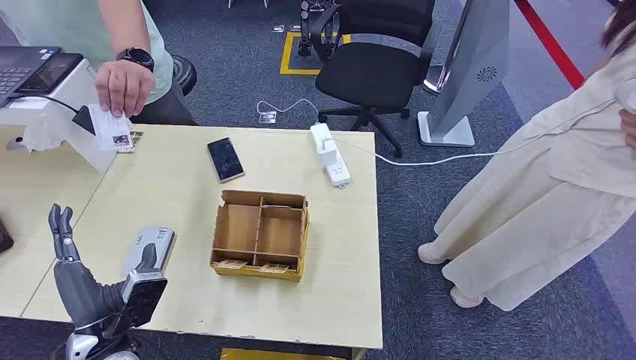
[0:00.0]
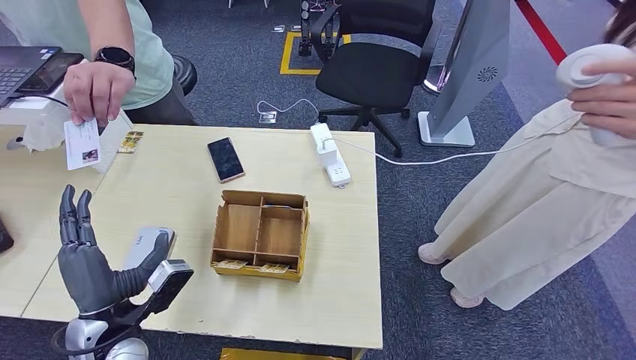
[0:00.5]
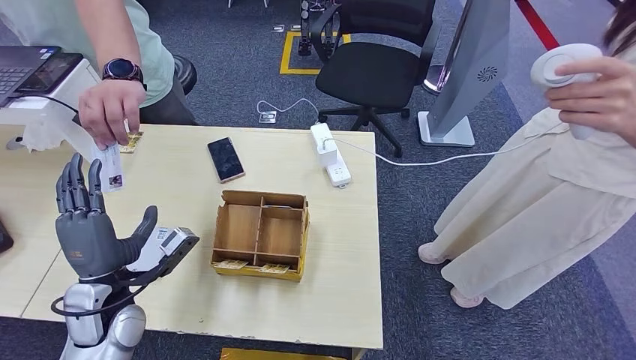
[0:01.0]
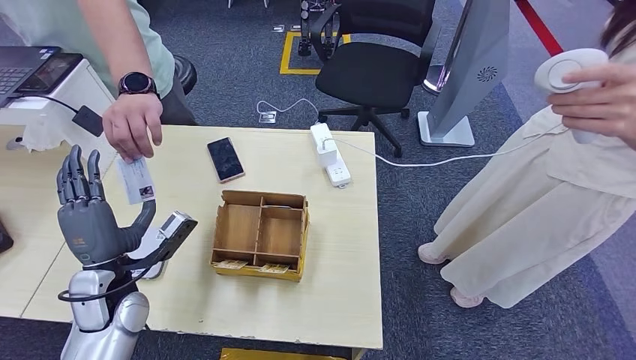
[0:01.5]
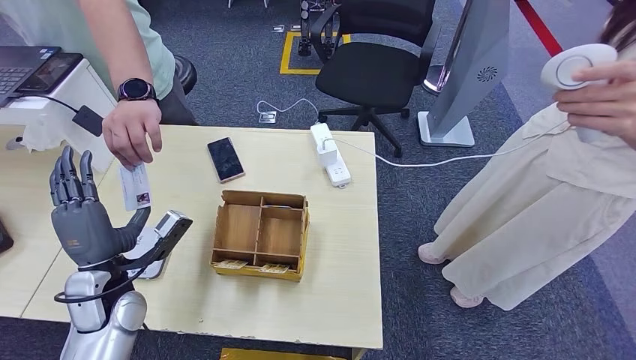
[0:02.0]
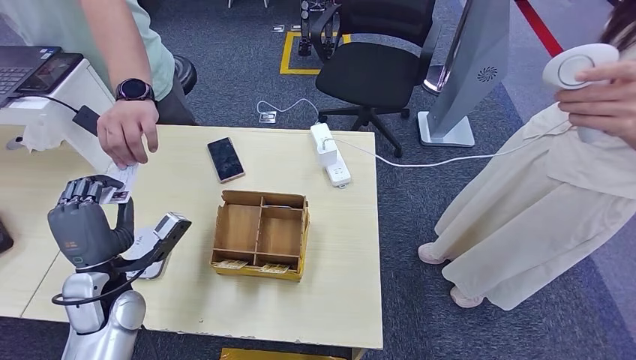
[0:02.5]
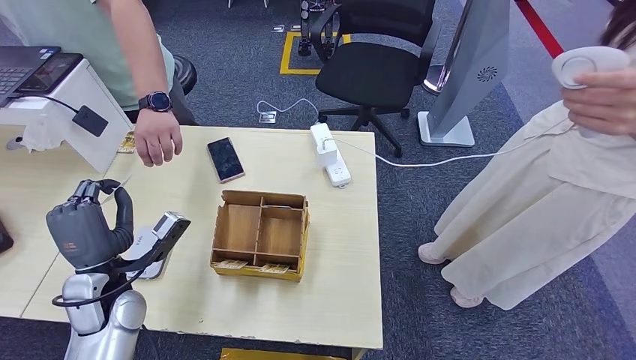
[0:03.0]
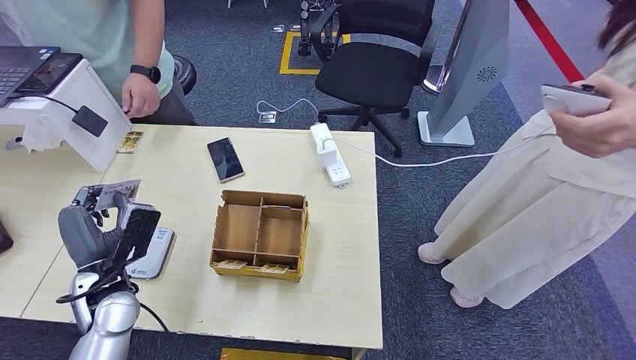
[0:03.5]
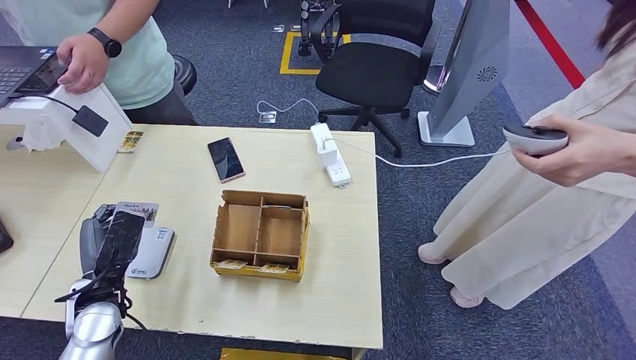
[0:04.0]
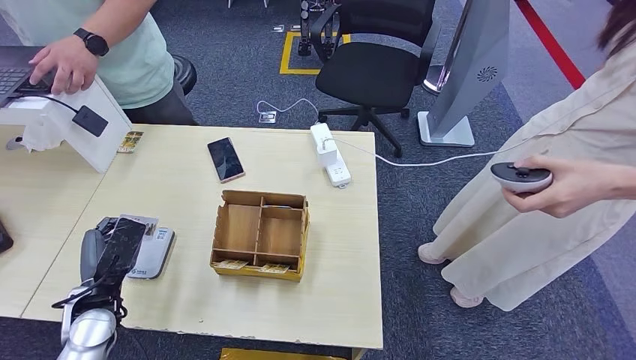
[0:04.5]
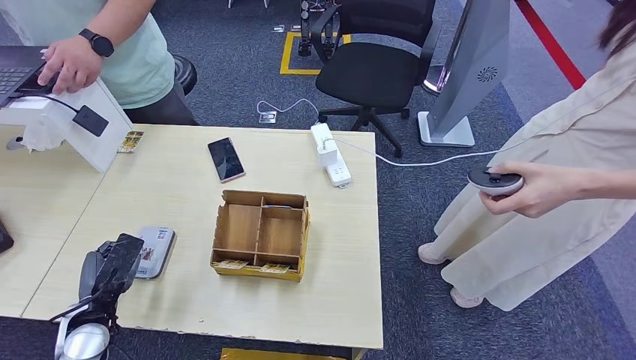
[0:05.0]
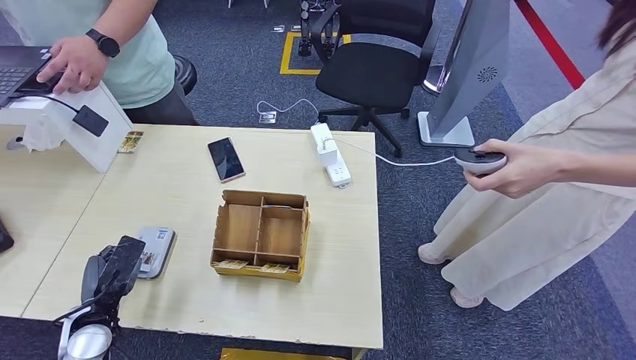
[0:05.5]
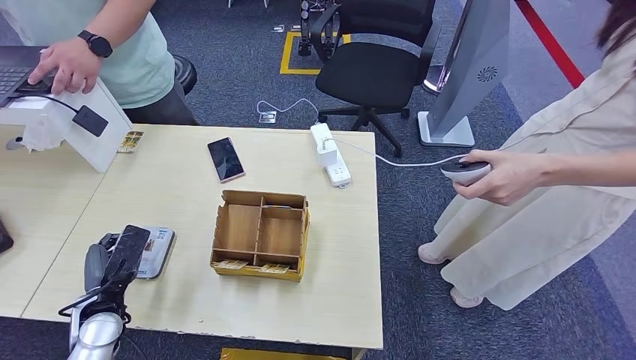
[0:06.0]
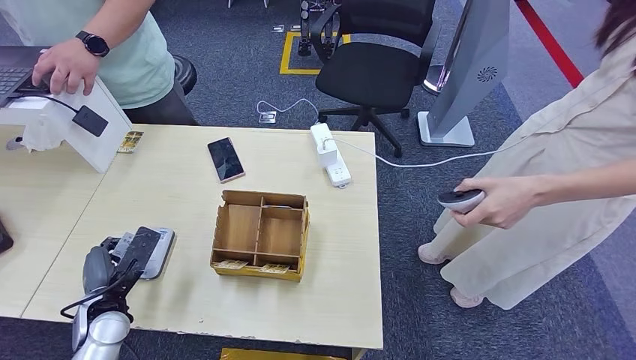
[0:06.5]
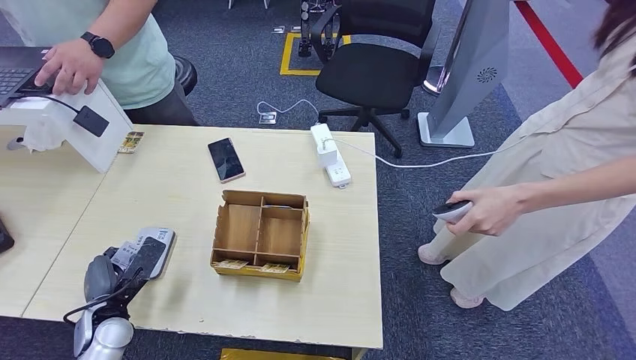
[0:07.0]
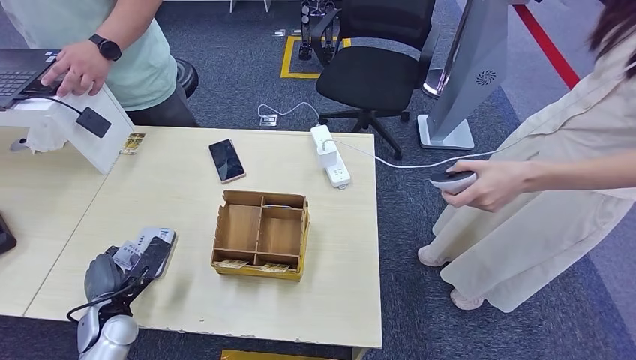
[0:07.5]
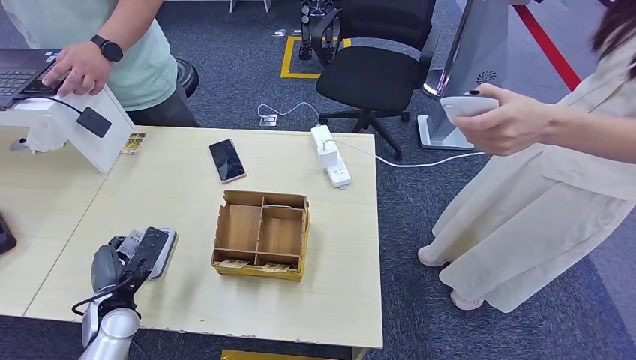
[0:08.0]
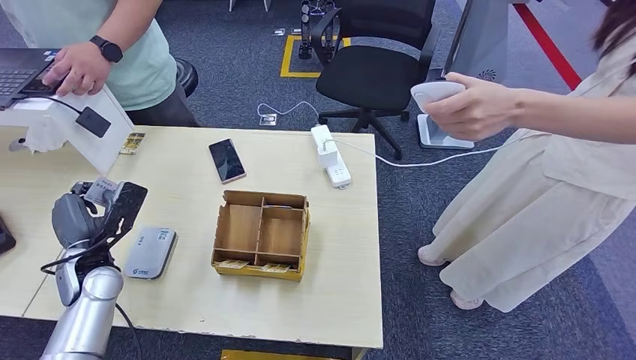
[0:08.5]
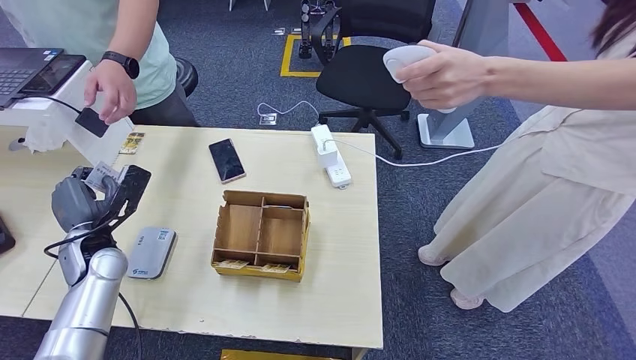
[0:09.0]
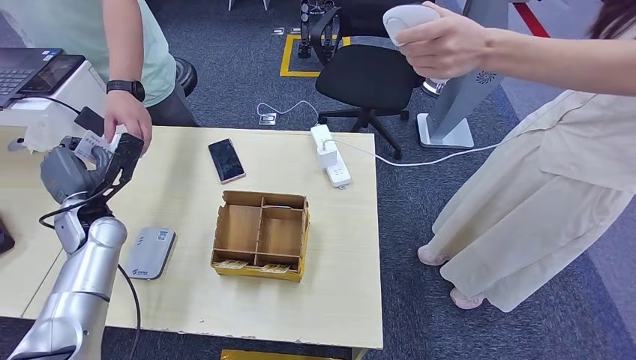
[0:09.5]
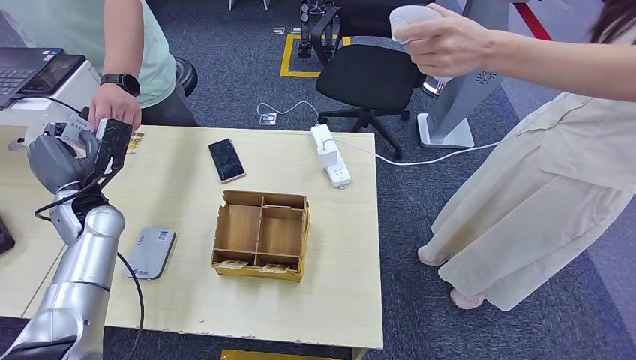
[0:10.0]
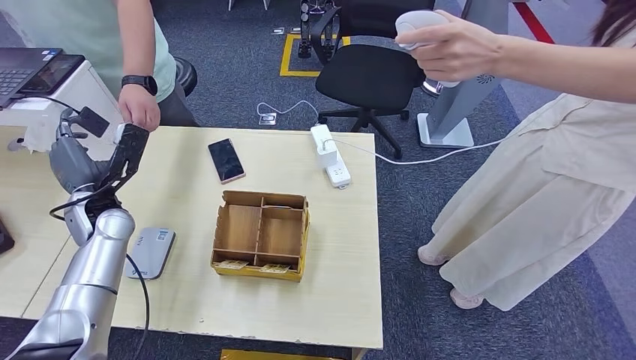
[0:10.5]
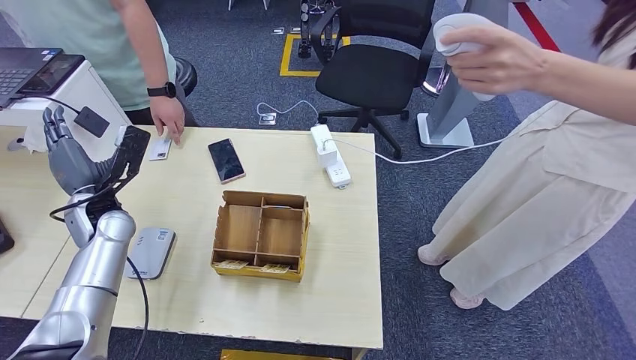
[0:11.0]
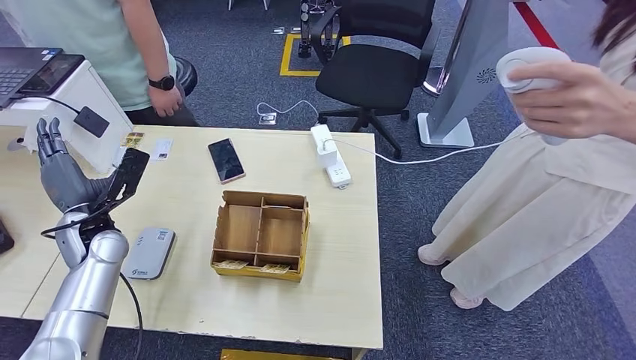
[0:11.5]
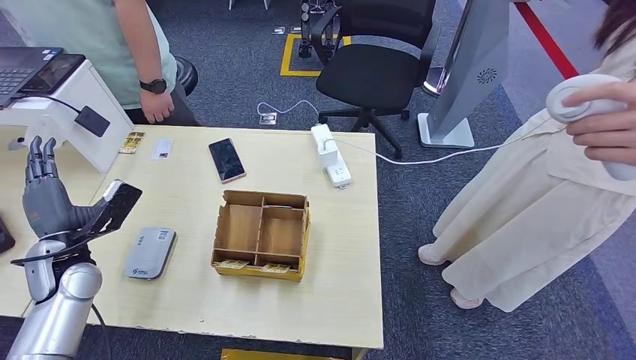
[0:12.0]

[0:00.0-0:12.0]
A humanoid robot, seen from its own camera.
Step, 0:00.0 to 0:02.5: Take the ID card from the person's hand.
Step, 0:03.5 to 0:07.0: Place the ID card on the card reader.
Step, 0:08.0 to 0:10.0: Hand the ID card to the person.
0:04.0 to 0:06.0: The left hand travels downward by some 5 cm.

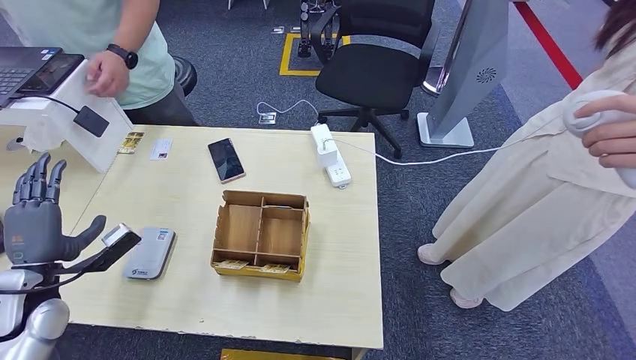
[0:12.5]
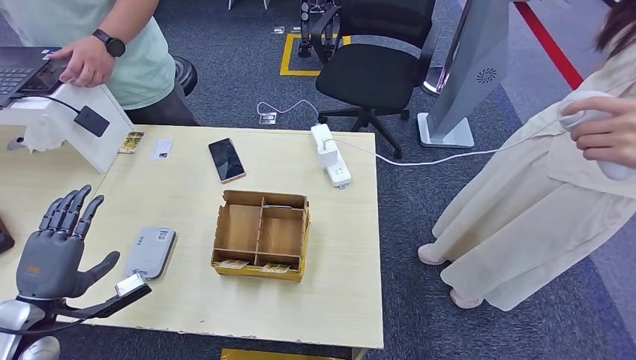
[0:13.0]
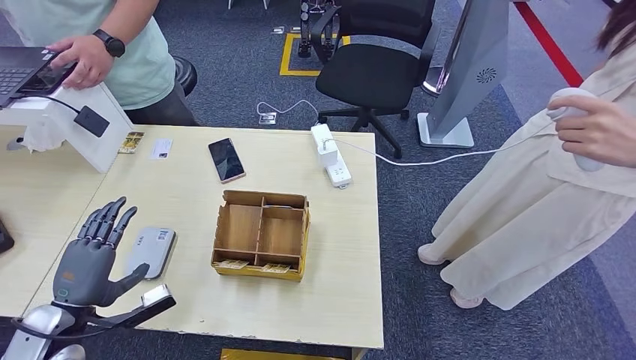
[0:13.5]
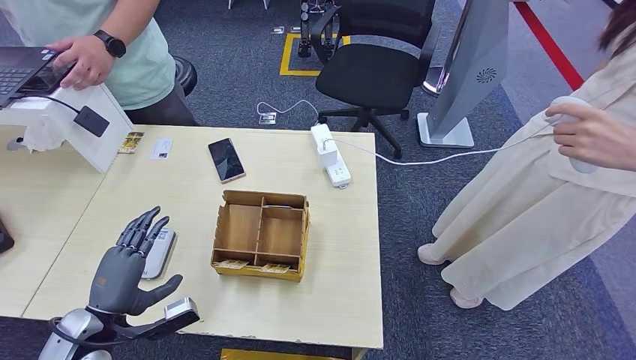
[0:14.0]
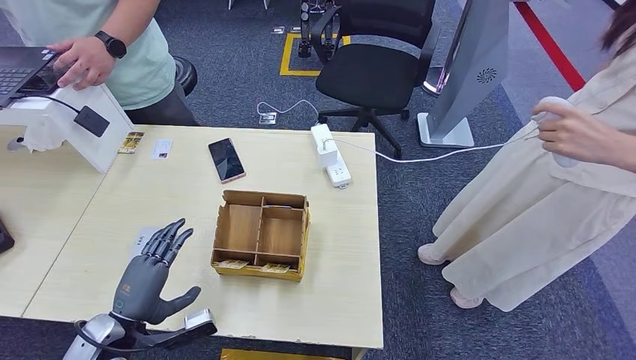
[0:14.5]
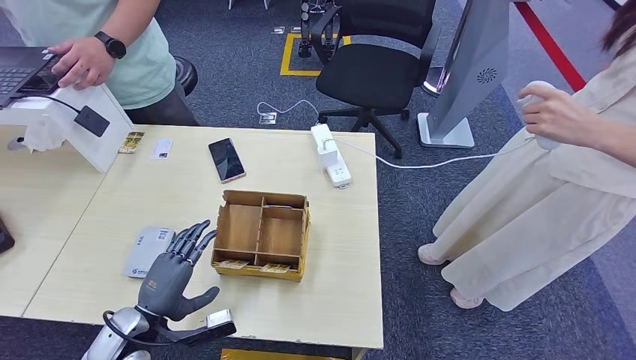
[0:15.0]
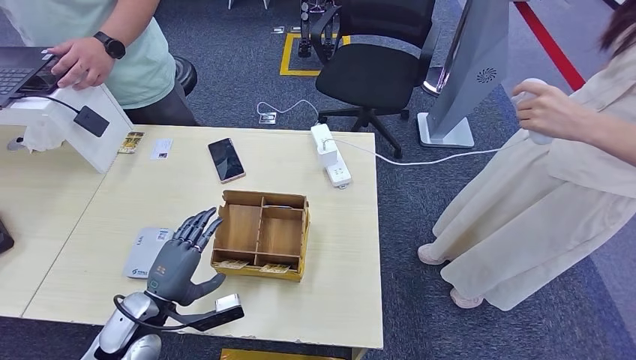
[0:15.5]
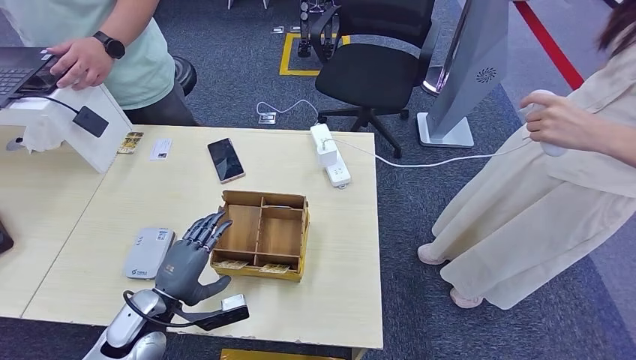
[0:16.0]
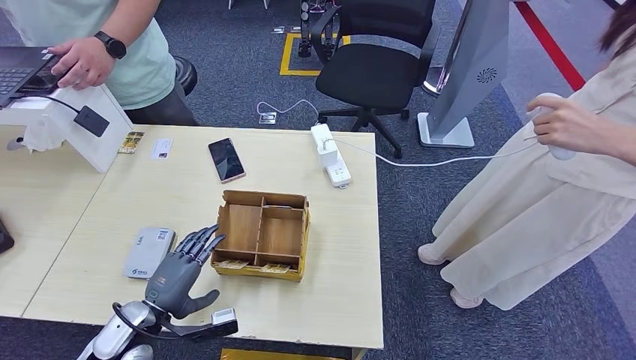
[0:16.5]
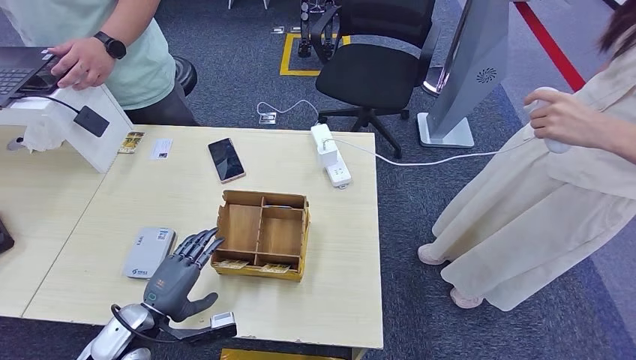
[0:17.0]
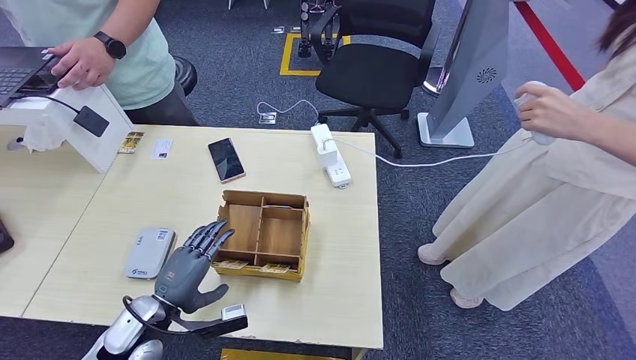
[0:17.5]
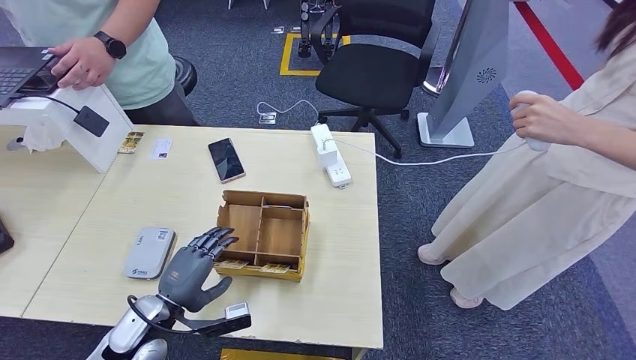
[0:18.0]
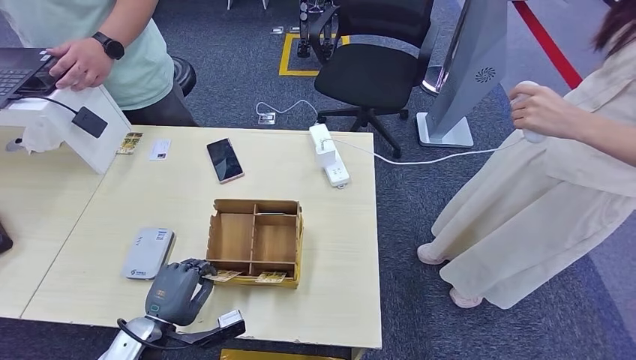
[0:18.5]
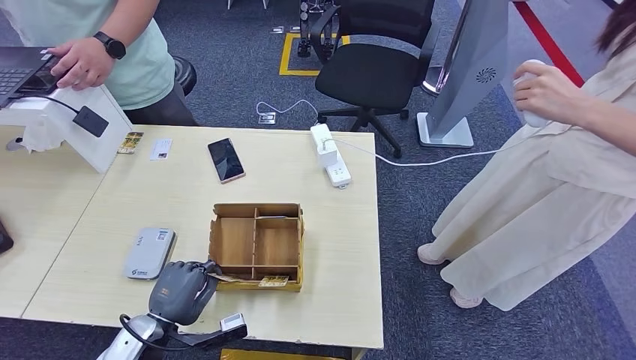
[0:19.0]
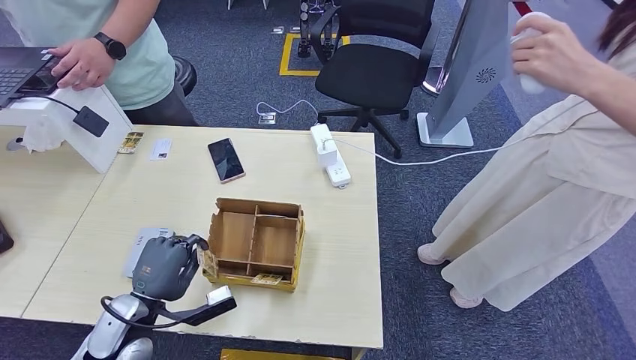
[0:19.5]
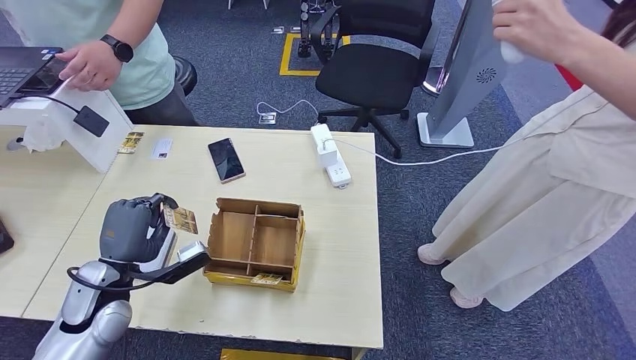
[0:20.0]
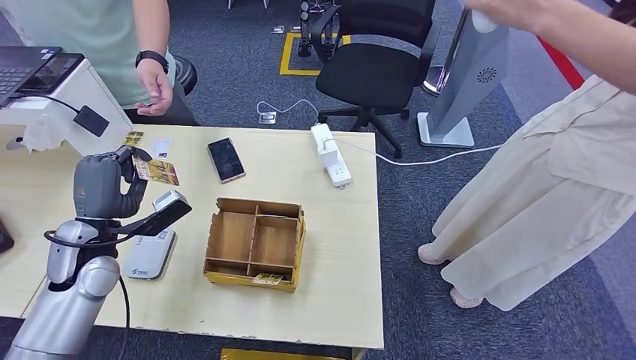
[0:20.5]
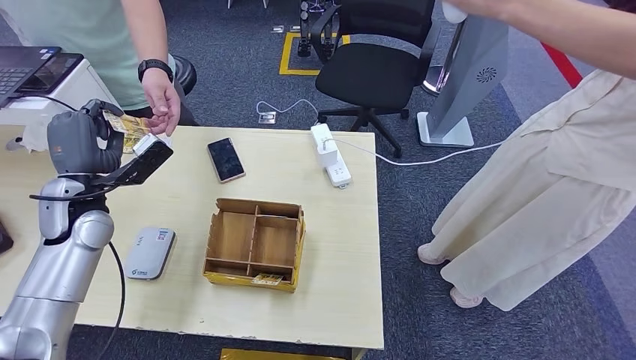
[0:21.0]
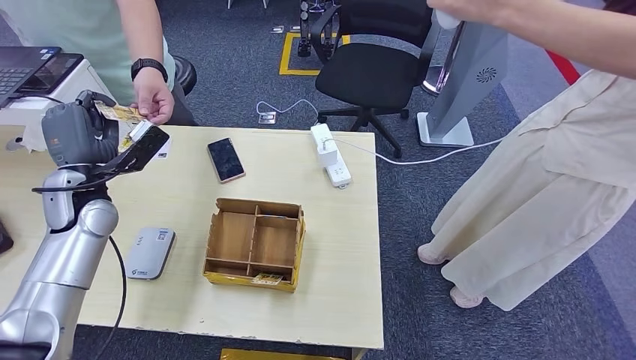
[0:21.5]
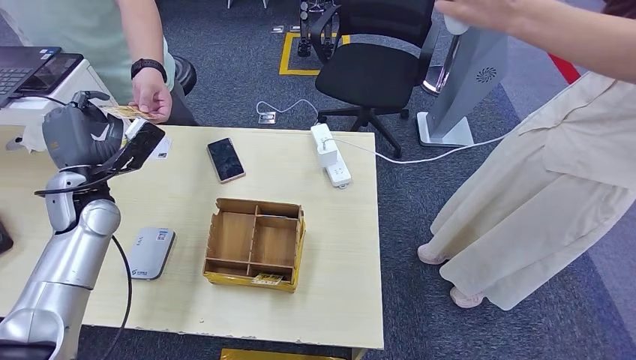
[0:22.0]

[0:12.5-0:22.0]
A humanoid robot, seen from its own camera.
Step, 0:12.5 to 0:19.0: Pick up the room key from the key card box.
Step, 0:19.5 to 0:22.0: Hand the room key to the person.
0:12.5 to 0:14.5: The left hand goes roughly 15 cm to the right, downward and backward.
0:16.5 to 0:18.0: The hands make only small movements.
0:18.0 to 0:20.0: The left hand goes some 10 cm upward and to the left, while the right hand goes roughly 10 cm to the left.
